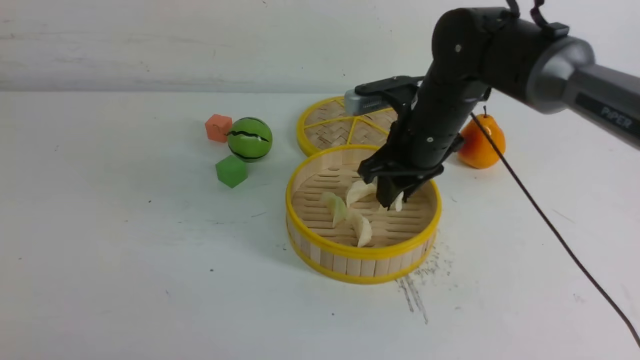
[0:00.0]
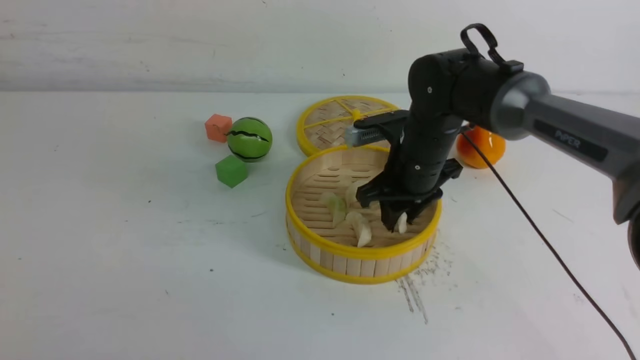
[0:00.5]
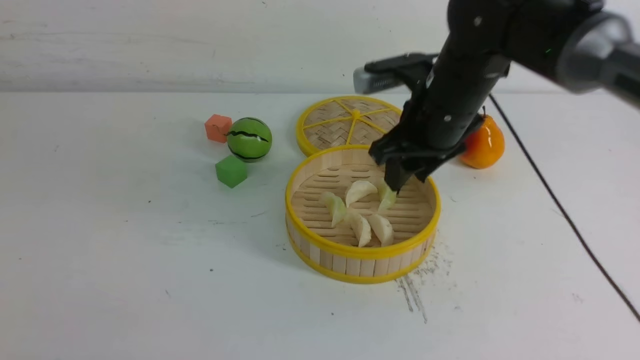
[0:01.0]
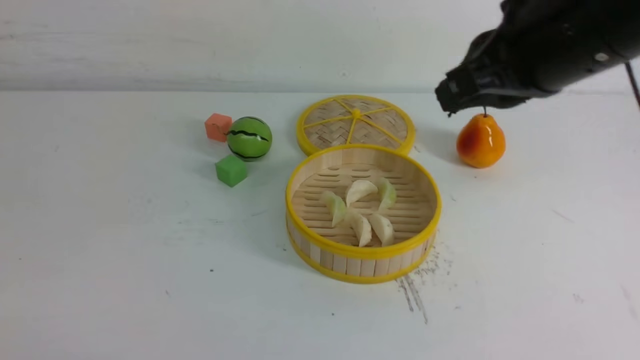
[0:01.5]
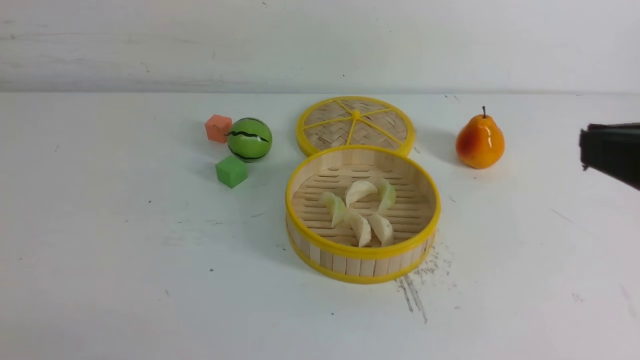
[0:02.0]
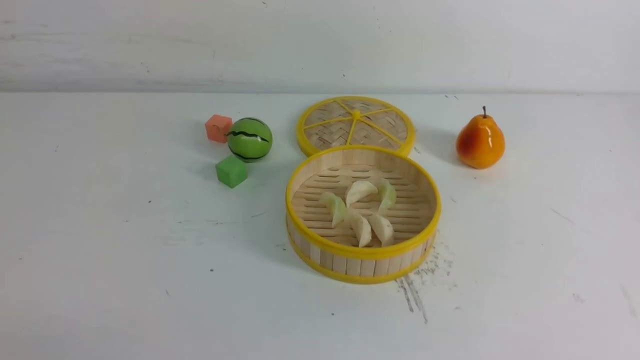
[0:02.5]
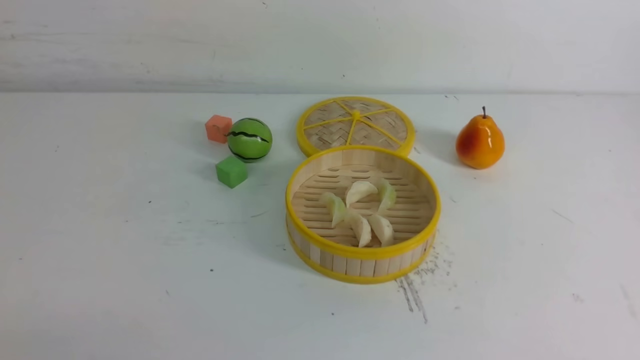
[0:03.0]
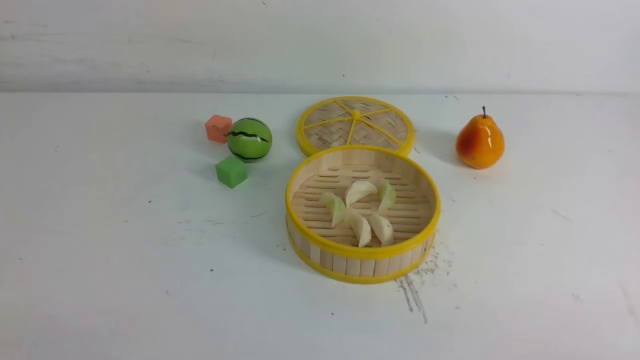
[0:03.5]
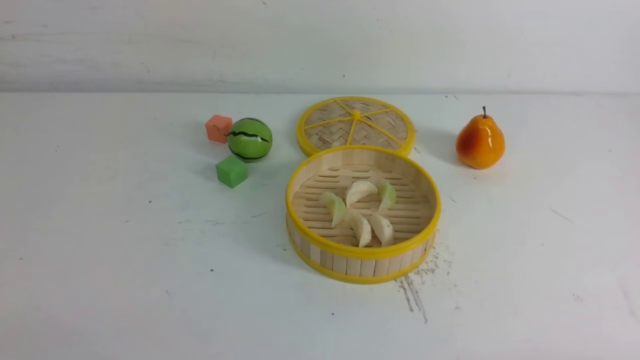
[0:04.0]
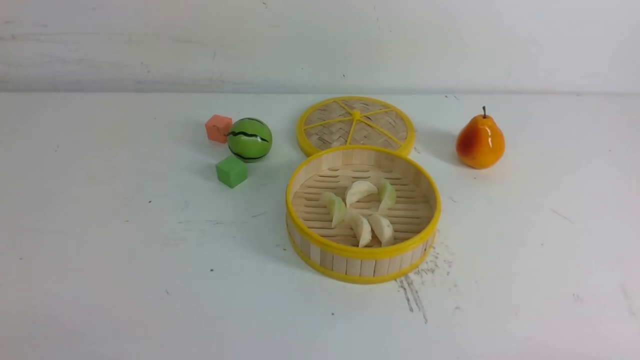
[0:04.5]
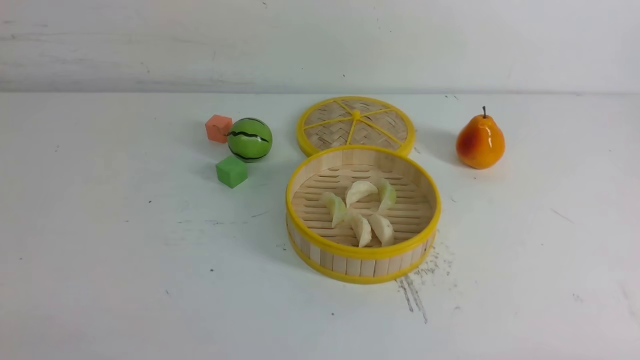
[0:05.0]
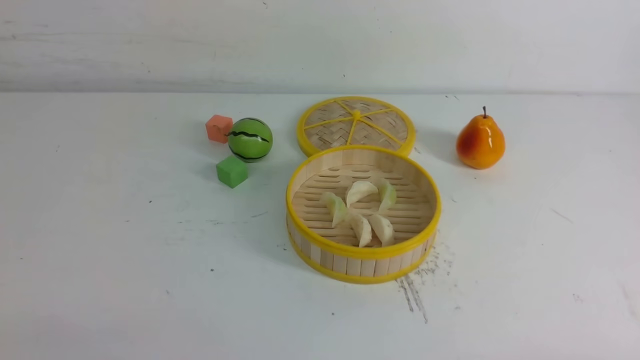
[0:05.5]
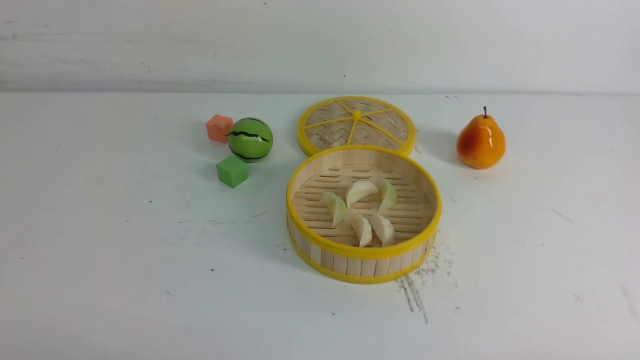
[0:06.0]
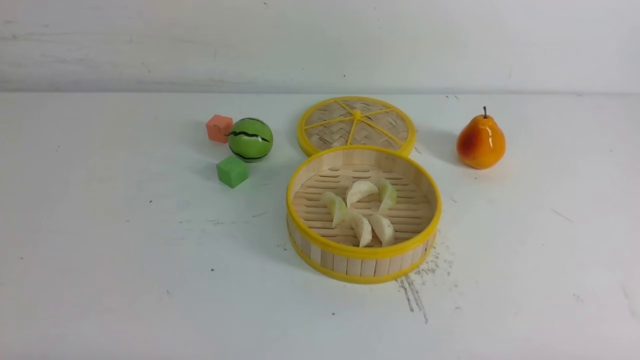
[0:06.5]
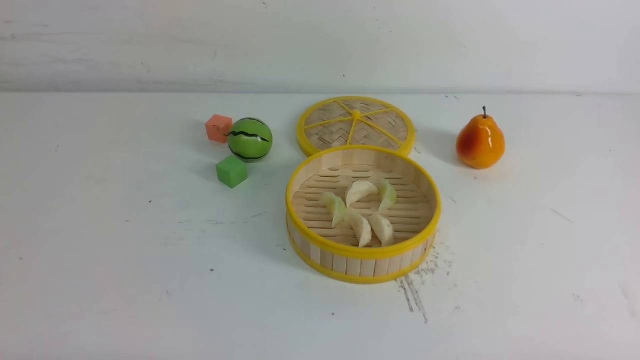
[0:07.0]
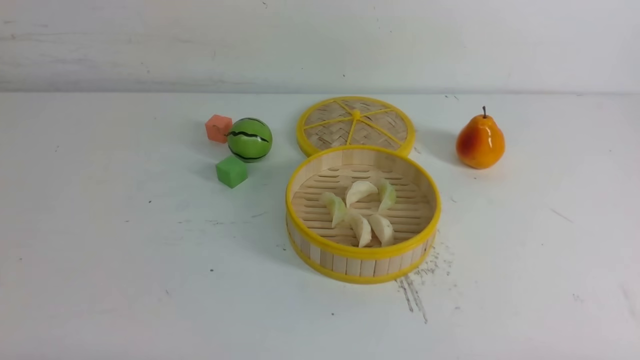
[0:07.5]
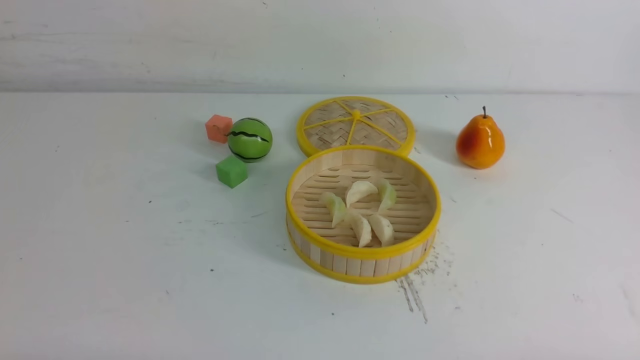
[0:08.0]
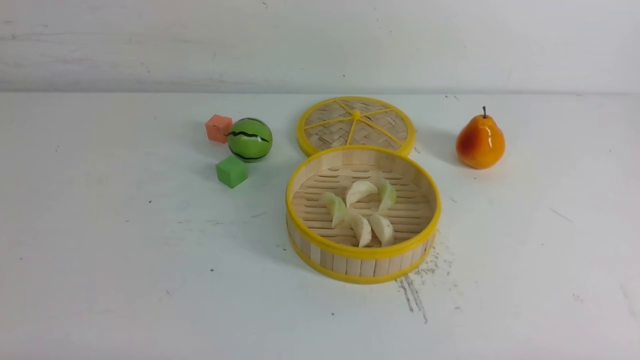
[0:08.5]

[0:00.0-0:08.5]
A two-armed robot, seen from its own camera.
Task of the whole recording: put the dumplings into the steamer on the white table.
Step, 0:00.0 to 0:01.0: use the right arm to put the dumpling into the steamer.
0:00.0 to 0:02.0: The right gripper shifts about 30 cm backward and upward, and closes its fingers. The left gripper changes place by some 5 cm.
0:02.0 to 0:04.0: The right gripper is displaced downward by about 25 cm.
0:06.5 to 0:08.5: Both grippers stay about where they are.
